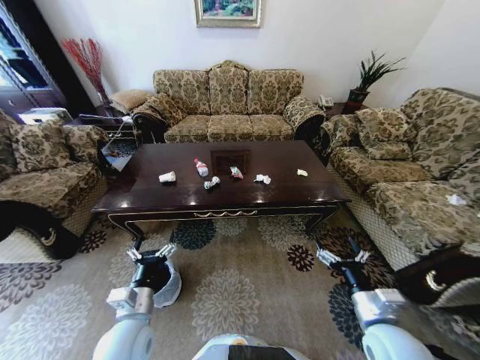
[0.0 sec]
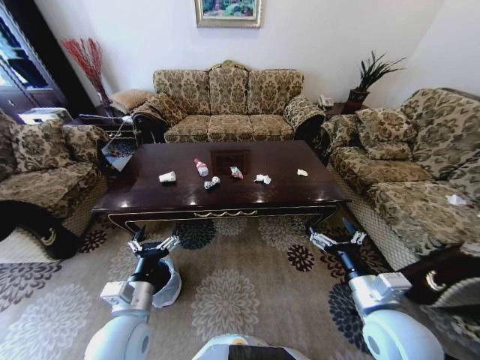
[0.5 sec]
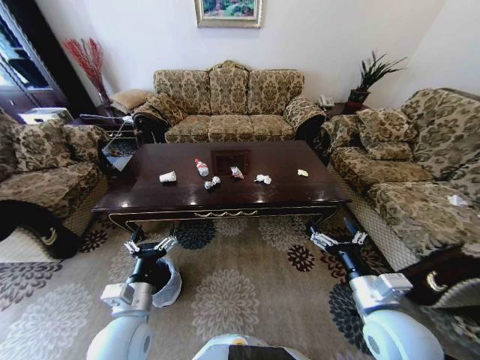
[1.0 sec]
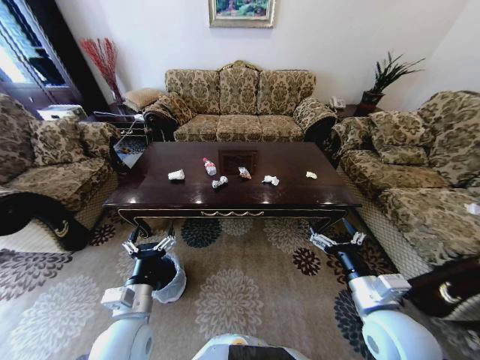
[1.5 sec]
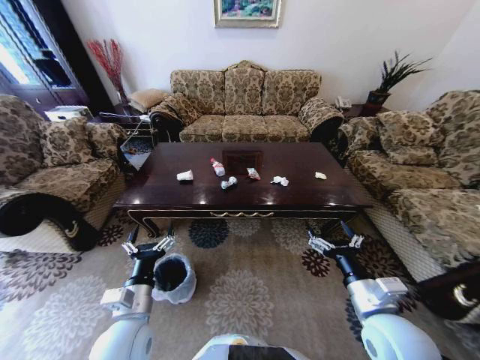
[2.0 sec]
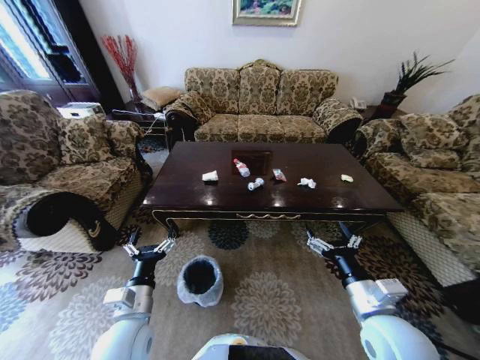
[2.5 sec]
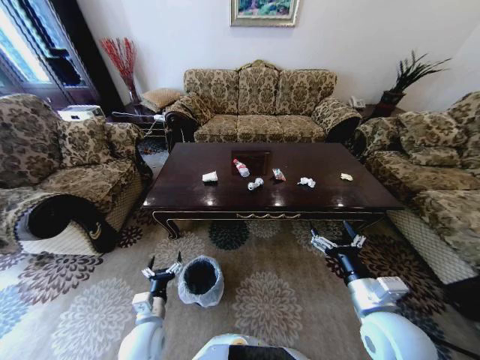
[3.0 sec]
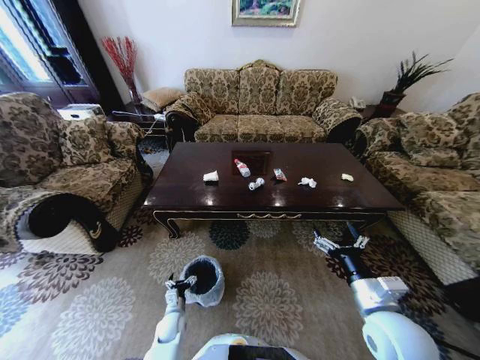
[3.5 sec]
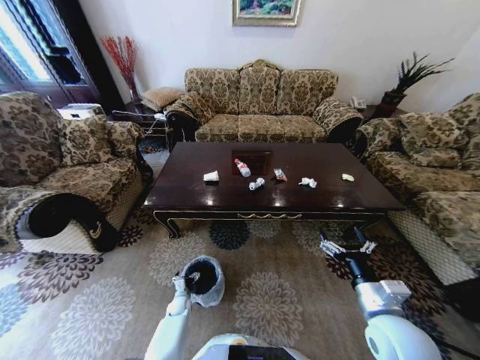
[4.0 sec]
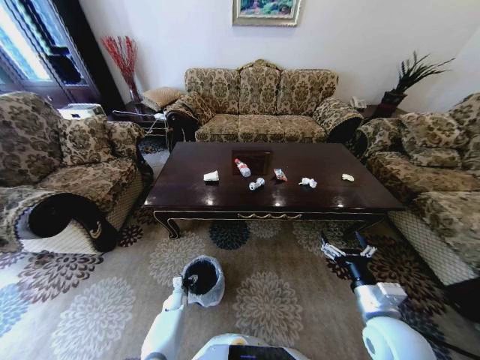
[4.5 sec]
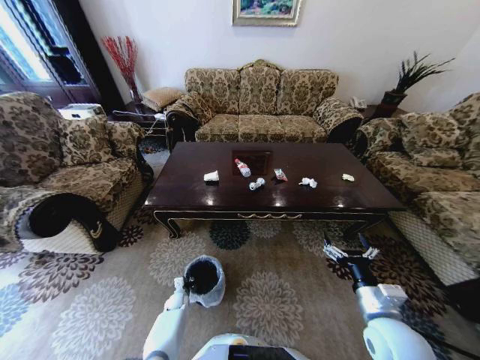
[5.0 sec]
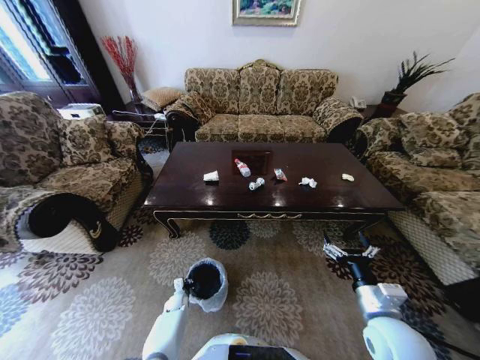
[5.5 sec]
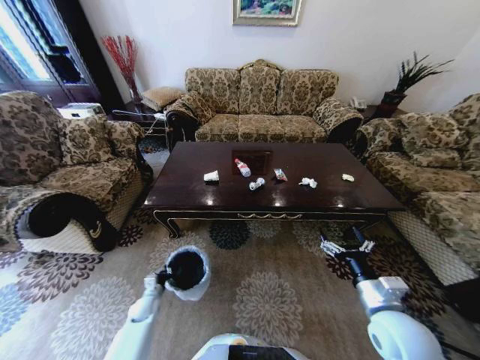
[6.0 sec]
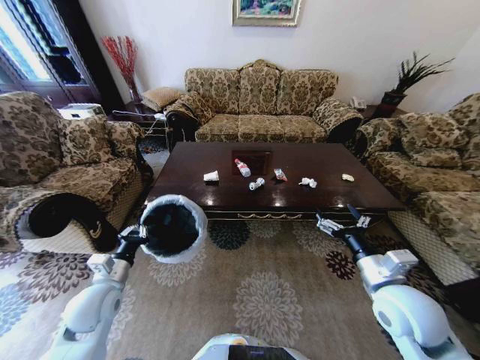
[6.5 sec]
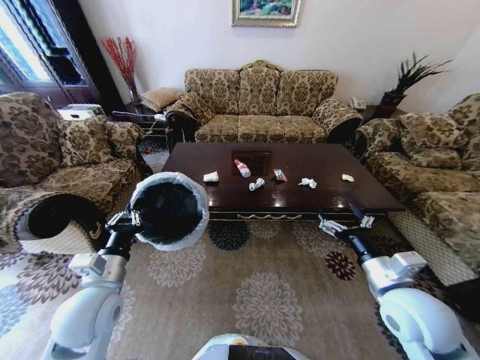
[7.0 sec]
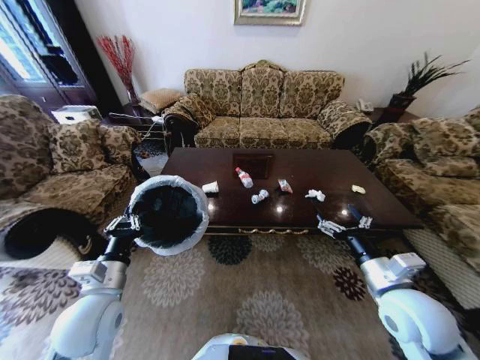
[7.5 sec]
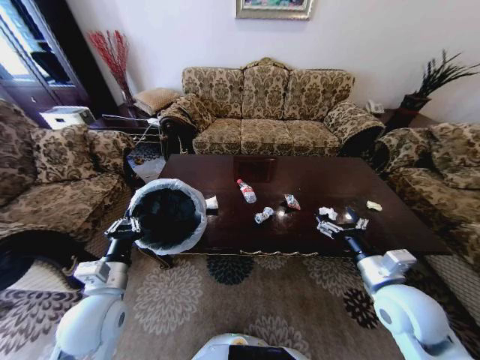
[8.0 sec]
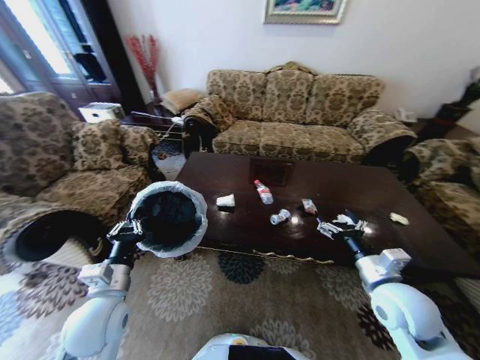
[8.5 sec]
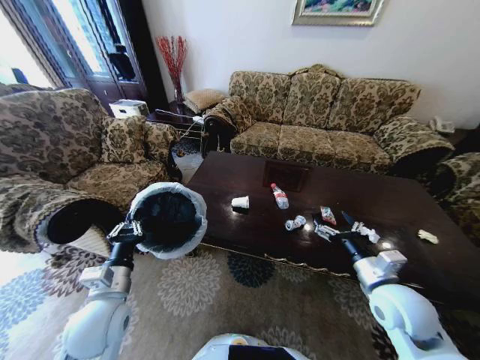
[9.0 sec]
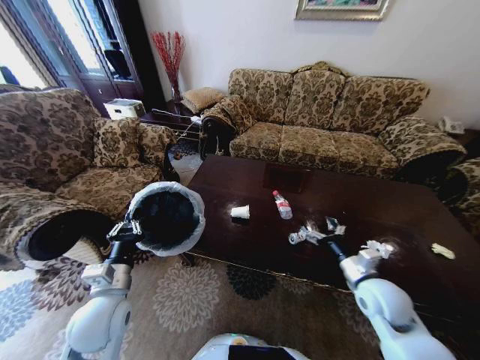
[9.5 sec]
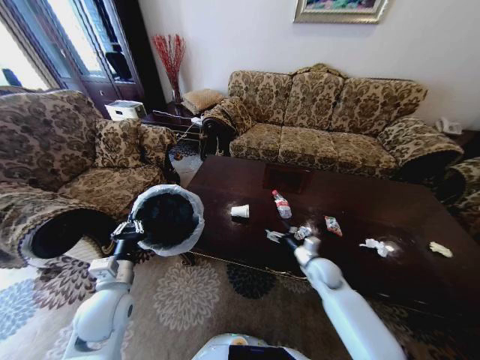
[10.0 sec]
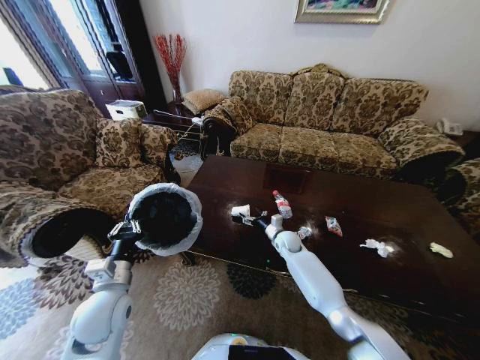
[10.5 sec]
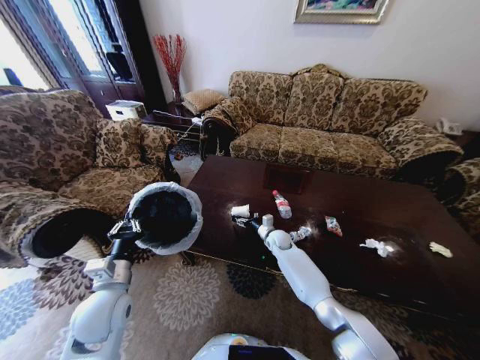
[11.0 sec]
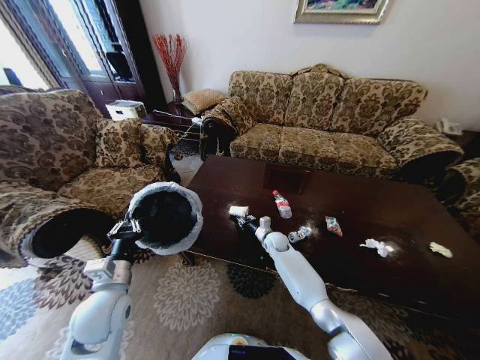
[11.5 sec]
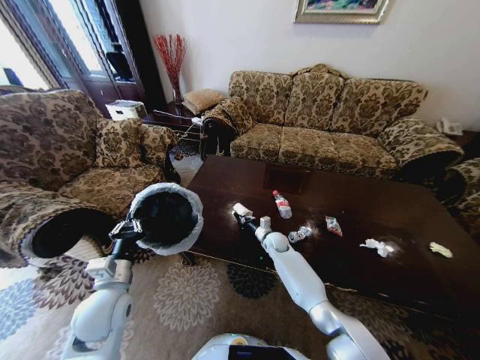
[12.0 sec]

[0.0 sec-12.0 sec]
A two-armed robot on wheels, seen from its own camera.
Task of the whole recording: Move to the front of the table and place the trash on the table into the trash bin.
2.0 sec to 4.0 sec: The left gripper travels downward by some 35 cm.
4.0 sec to 6.0 sec: The left gripper moves to the left and upward, some 15 cm, and closes up.
6.0 sec to 8.0 sec: The left gripper is displaced upward by about 35 cm. Meanwhile the right gripper ends up some 5 cm from where it was.
8.0 sec to 10.0 sec: The right gripper is displaced downward and forward by approximately 20 cm.
10.0 sec to 12.0 sec: The right gripper travels forward and to the left by approximately 20 cm, and closes.

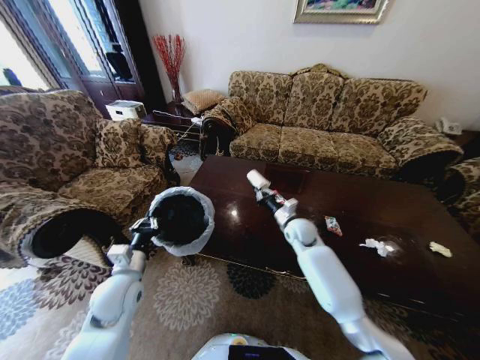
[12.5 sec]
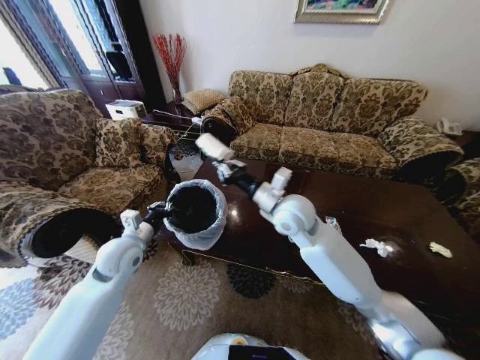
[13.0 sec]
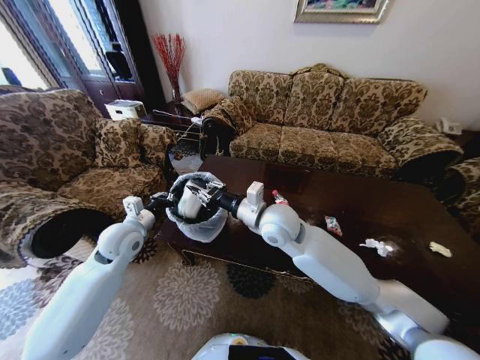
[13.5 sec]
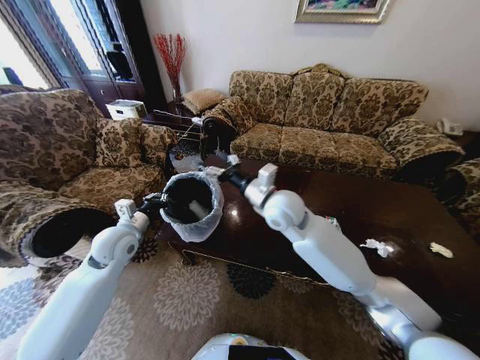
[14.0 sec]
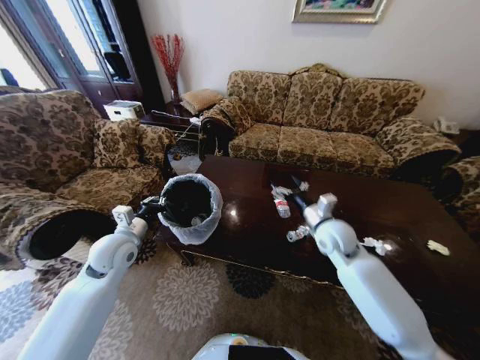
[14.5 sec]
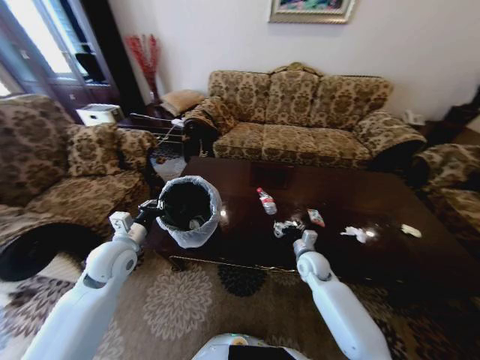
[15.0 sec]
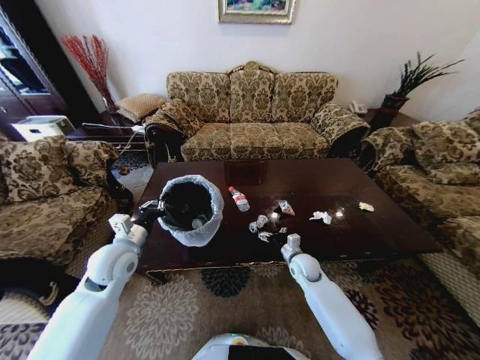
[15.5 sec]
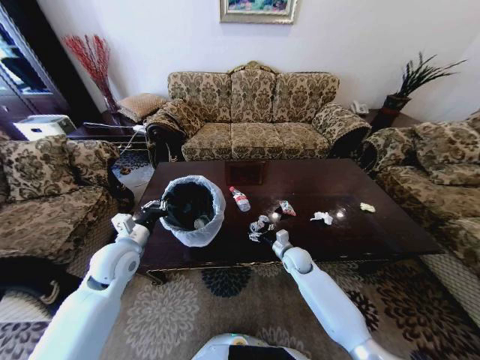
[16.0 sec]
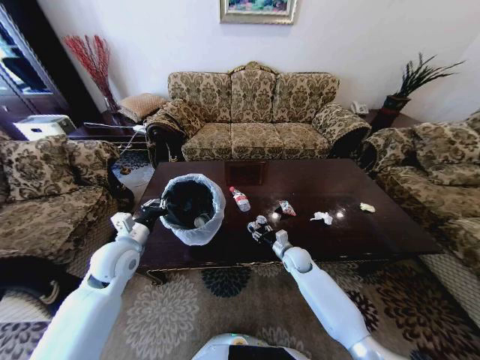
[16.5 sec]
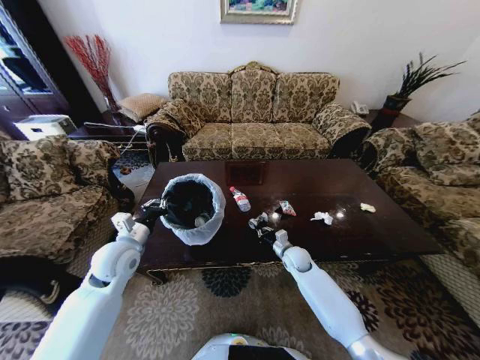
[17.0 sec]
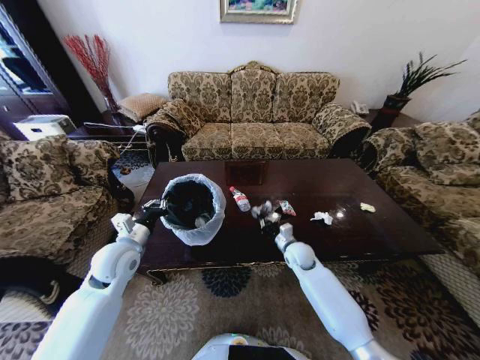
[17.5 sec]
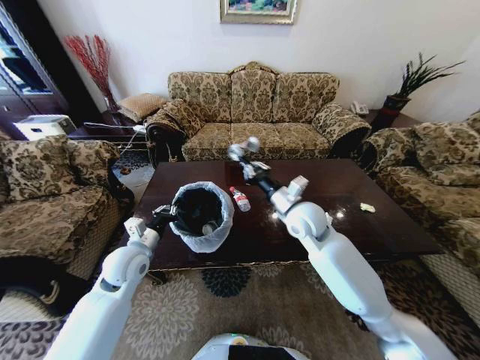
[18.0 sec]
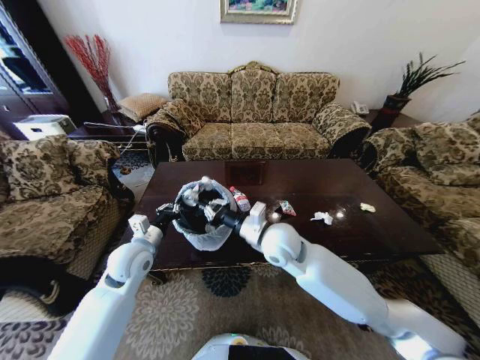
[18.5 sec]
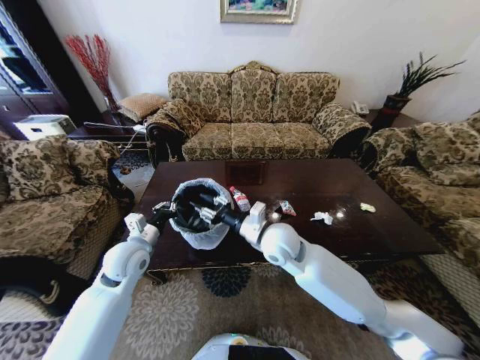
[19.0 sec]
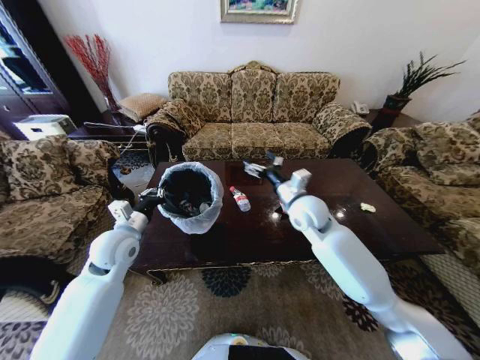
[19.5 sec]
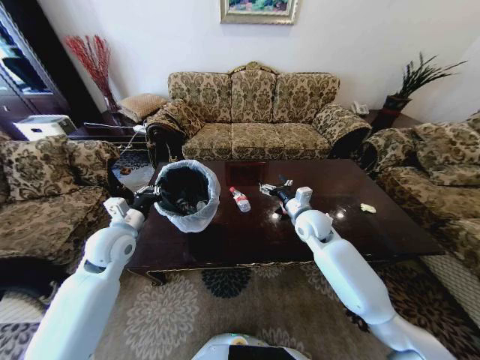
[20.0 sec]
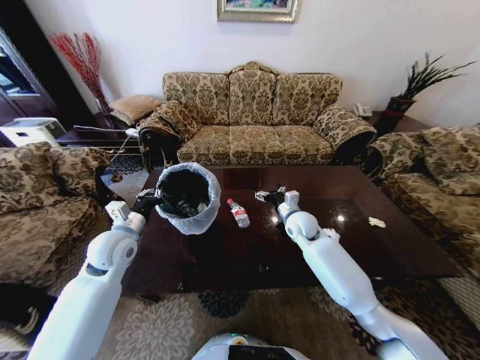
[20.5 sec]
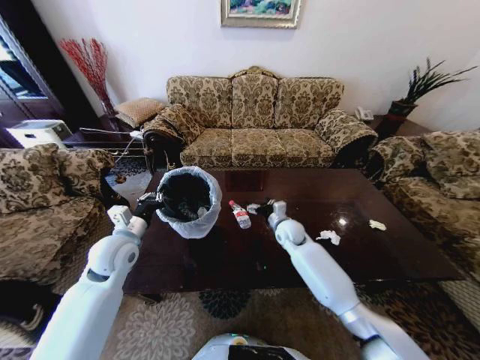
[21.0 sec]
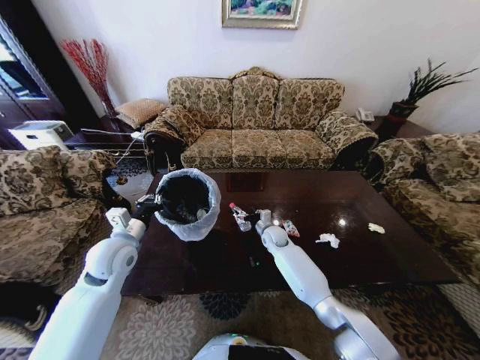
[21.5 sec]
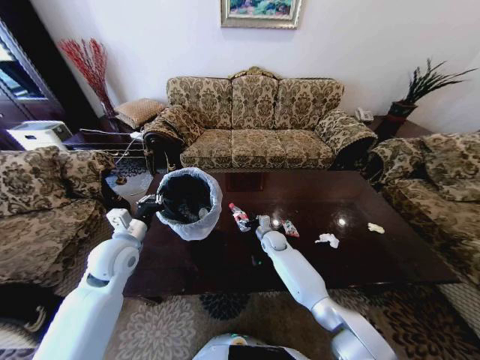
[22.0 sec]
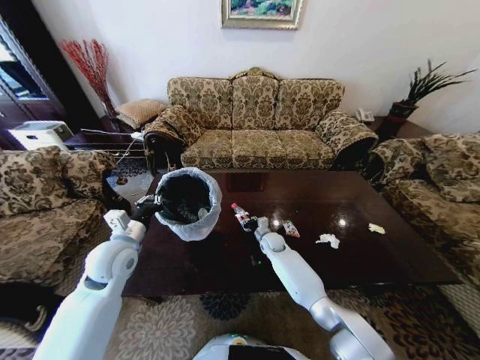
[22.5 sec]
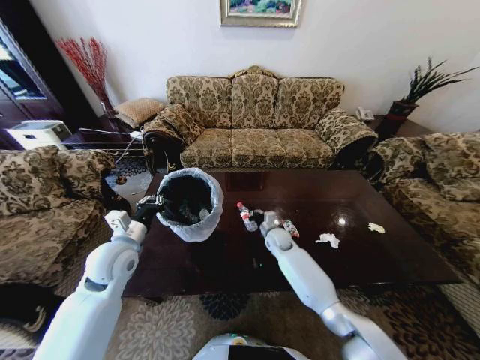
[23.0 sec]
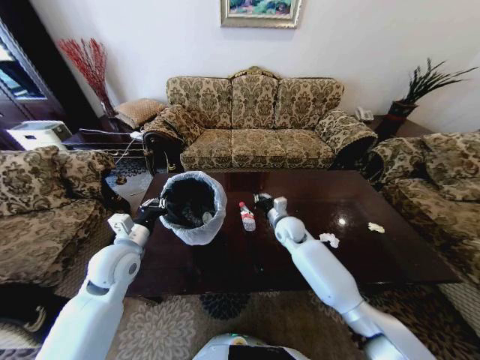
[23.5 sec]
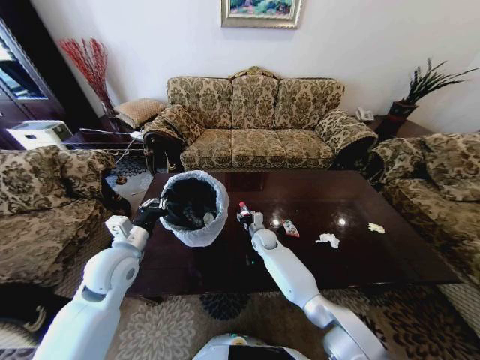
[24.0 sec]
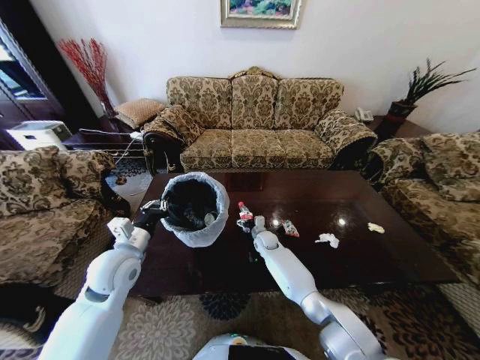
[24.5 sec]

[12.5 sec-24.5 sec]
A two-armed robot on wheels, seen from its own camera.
Task of the whole recording: Move to the front of the table and place the trash on the table into the trash bin.
12.5 sec to 14.5 sec: The left gripper shifts some 10 cm forward and upward; the right gripper moves upward, backward and to the right, roughly 15 cm, and opens.
14.5 sec to 16.5 sec: The right gripper is displaced downward by approximately 20 cm, and closes.
16.5 sec to 18.5 sec: The right gripper travels upward and to the left by some 25 cm, and closes its fingers.
18.5 sec to 20.5 sec: The left gripper changes place by about 5 cm, while the right gripper goes roughly 15 cm forward, to the right and downward, and opens.
20.5 sec to 22.5 sec: The right gripper goes about 15 cm downward, and closes.
22.5 sec to 24.5 sec: The right gripper moves some 15 cm upward and comes back, and opens its fingers.

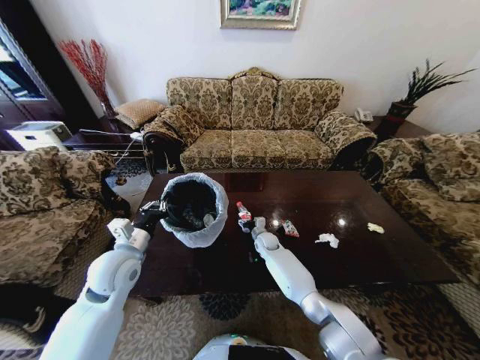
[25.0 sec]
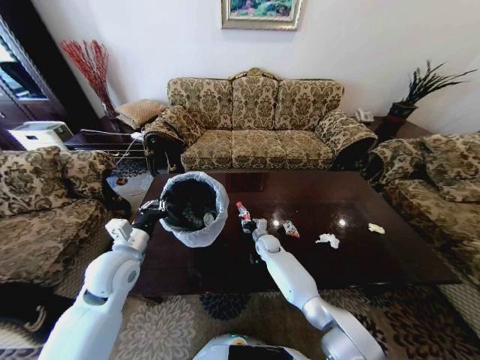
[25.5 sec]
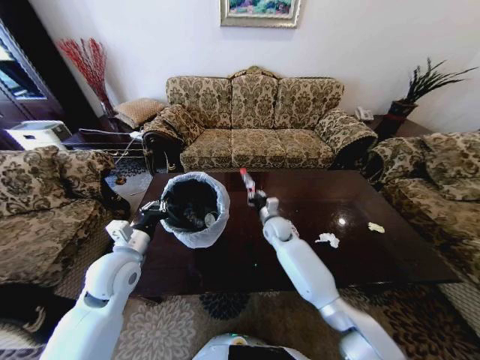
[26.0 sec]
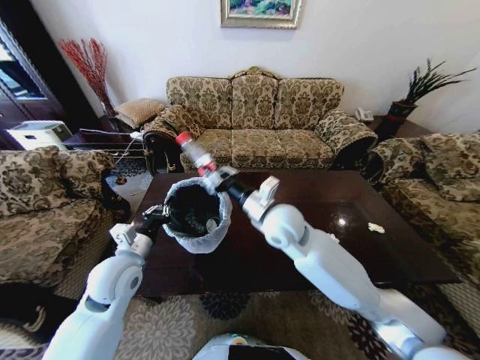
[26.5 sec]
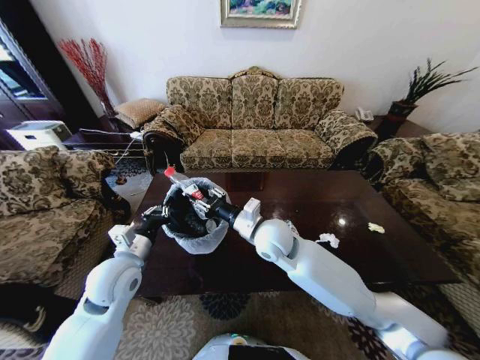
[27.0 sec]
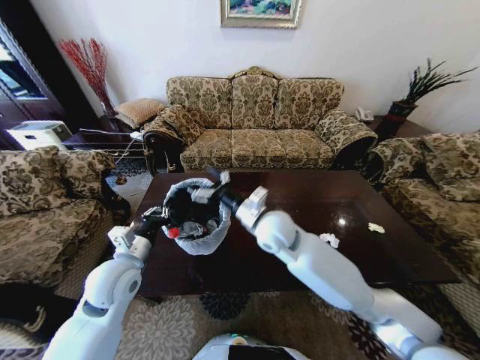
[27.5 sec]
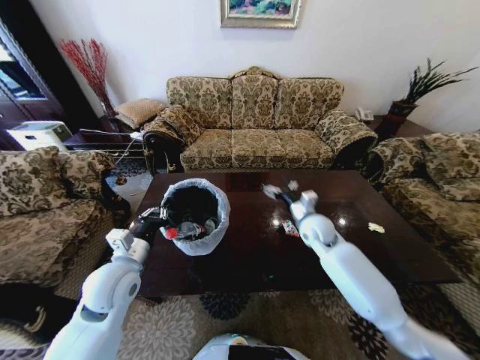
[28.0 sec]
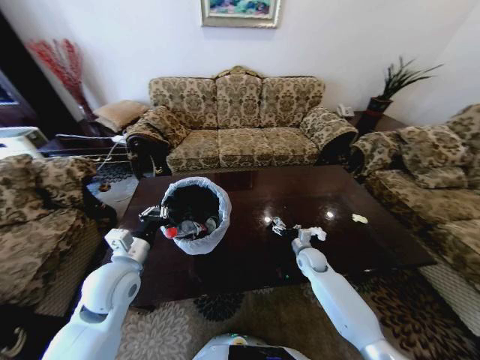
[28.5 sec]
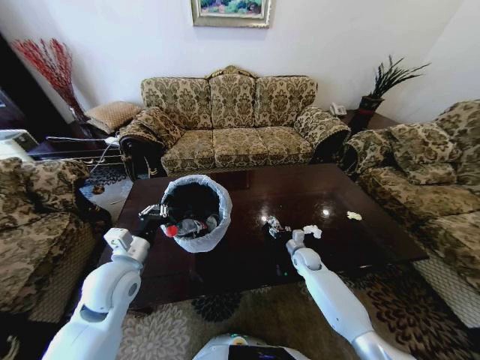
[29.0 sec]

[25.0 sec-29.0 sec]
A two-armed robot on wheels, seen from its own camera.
Task of the whole recording: Move to the front of the table and place the trash on the table into the trash bin.
25.0 sec to 27.0 sec: The right gripper shifts about 30 cm upward and backward, and closes.
27.0 sec to 29.0 sec: The right gripper moves downward and to the right, some 30 cm, and opens, then closes again.
